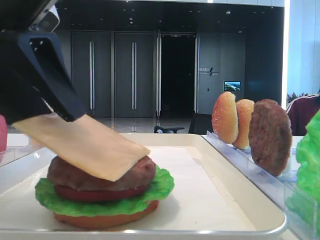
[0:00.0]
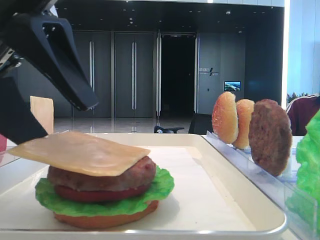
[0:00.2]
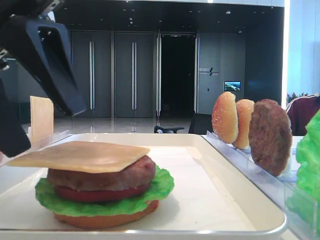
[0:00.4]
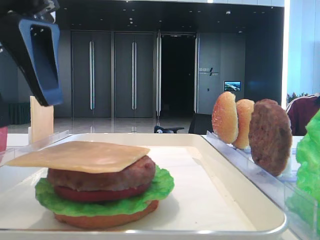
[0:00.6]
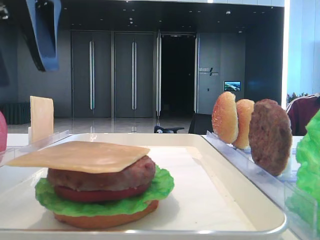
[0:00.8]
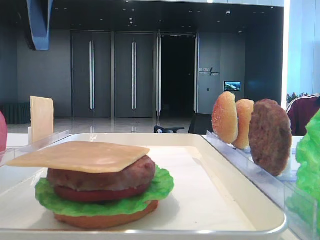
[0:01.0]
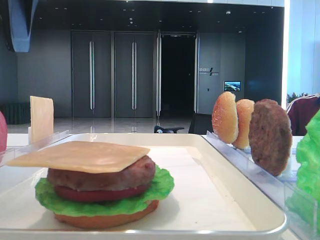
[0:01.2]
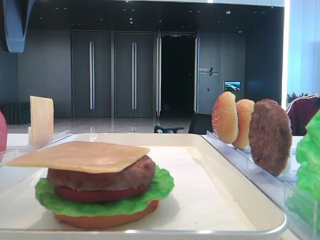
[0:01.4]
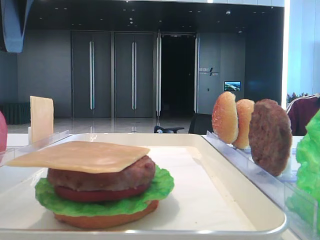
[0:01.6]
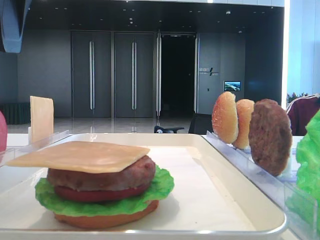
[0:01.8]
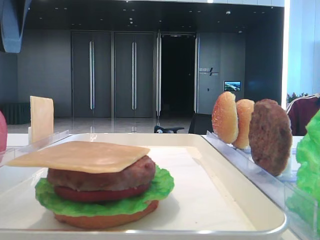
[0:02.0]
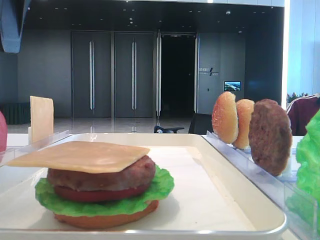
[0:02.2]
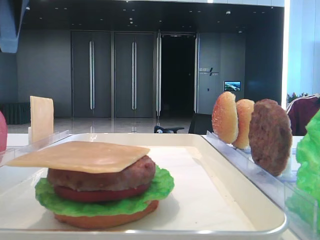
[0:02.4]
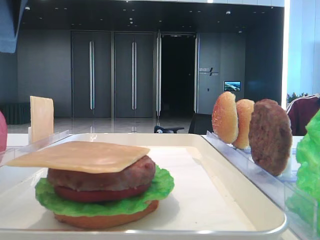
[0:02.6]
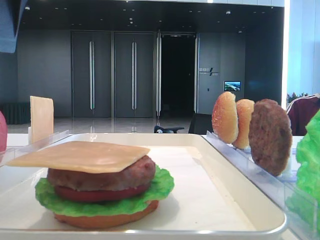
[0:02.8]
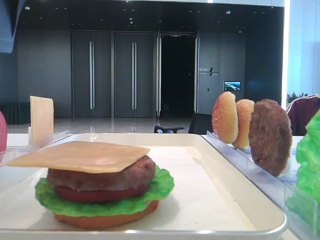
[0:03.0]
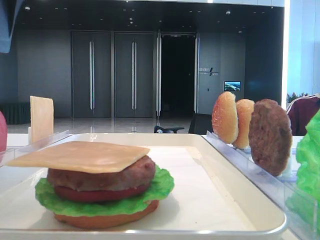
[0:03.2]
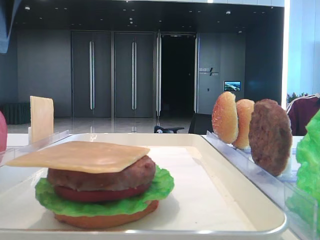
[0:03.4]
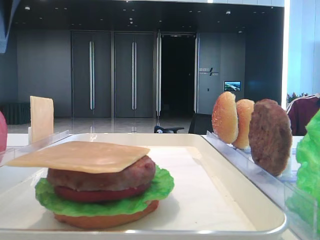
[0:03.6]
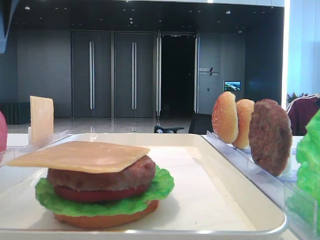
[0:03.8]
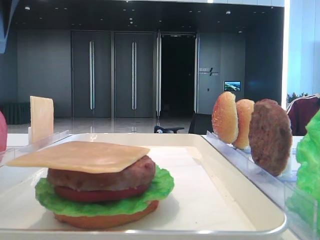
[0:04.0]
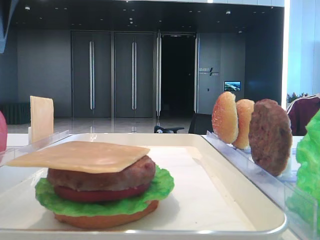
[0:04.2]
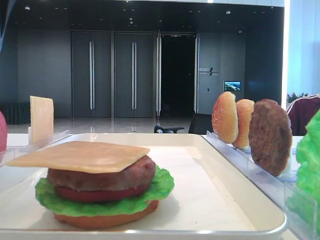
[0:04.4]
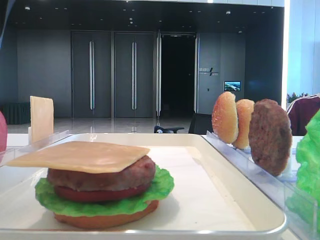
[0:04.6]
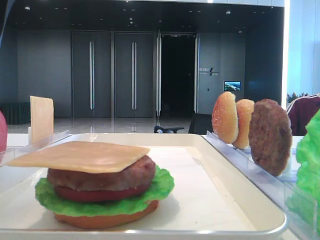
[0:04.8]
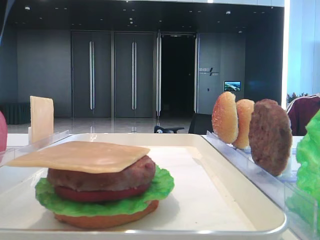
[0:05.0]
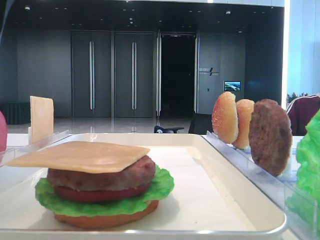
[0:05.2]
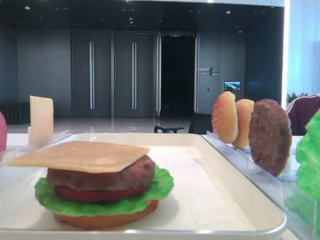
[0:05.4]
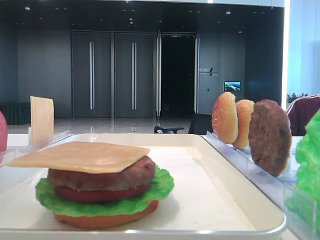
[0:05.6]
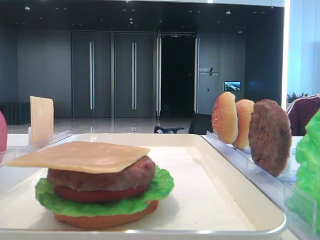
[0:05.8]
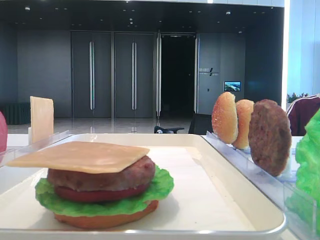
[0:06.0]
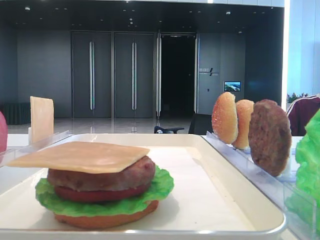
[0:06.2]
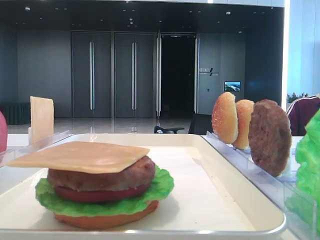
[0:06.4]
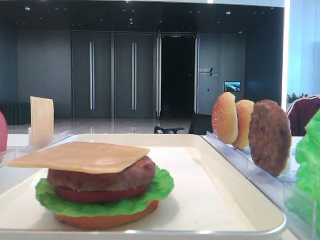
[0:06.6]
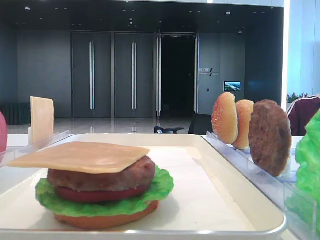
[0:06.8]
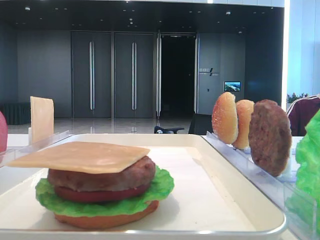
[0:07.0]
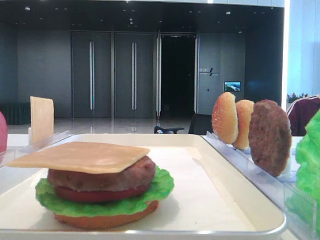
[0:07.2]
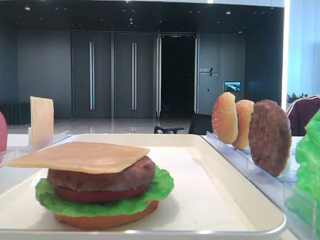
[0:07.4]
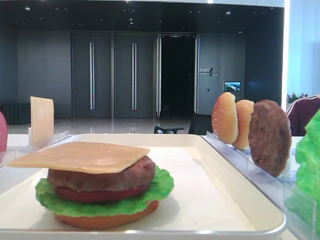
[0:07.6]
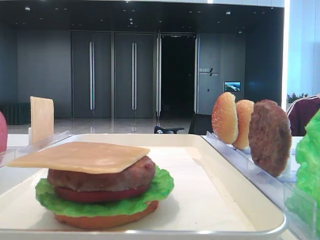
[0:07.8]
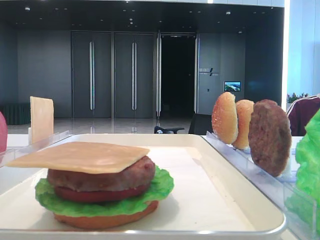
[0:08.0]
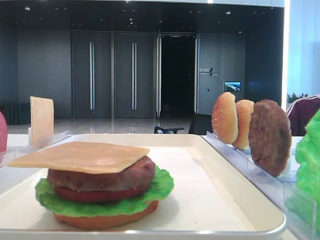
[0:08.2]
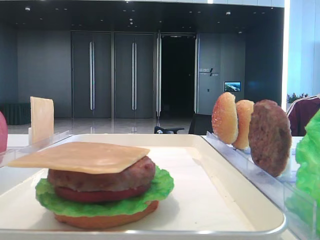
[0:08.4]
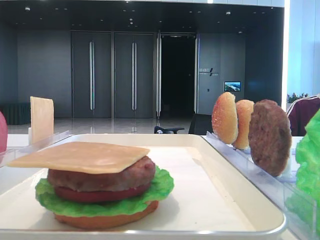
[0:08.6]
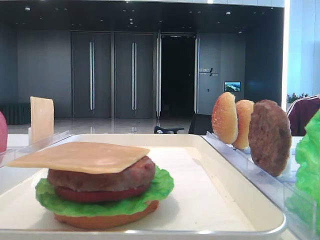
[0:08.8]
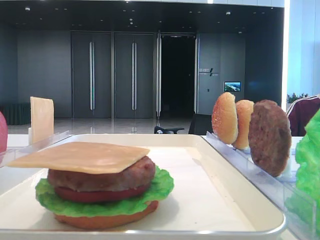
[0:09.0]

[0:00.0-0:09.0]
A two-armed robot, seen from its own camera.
0:00.0 to 0:01.6: The left gripper moves upward and forward, some 10 cm, and opens.
0:01.6 to 0:04.4: Neither gripper changes place.
0:04.4 to 0:06.0: The left gripper is displaced backward and to the left by some 15 cm.

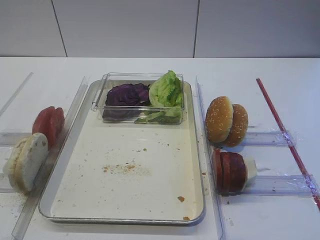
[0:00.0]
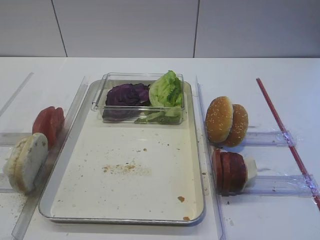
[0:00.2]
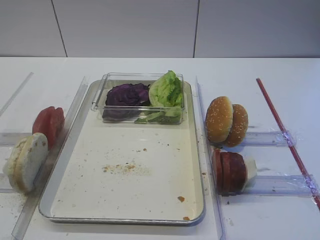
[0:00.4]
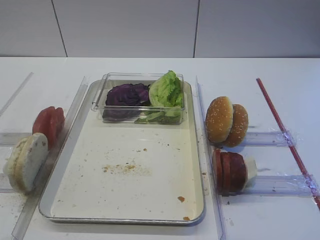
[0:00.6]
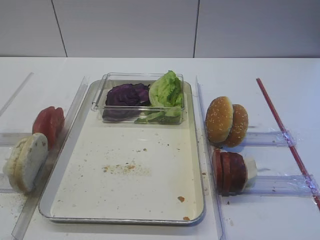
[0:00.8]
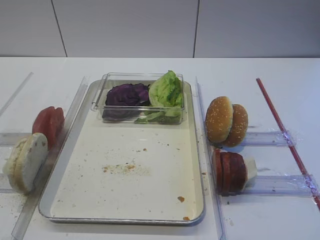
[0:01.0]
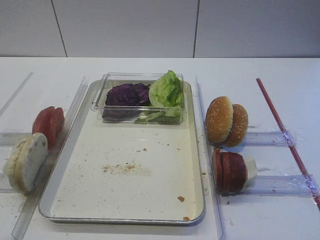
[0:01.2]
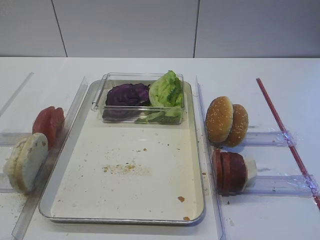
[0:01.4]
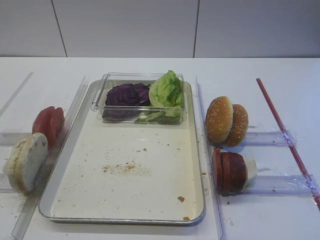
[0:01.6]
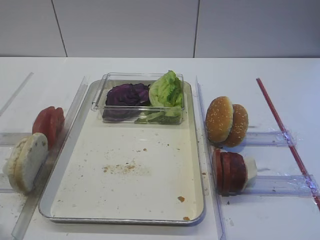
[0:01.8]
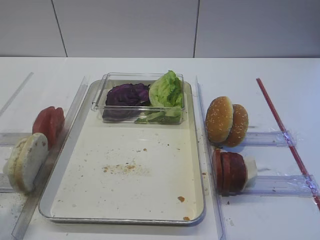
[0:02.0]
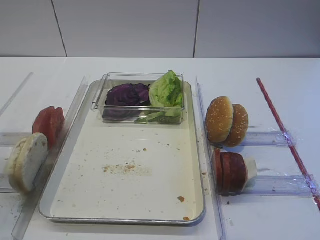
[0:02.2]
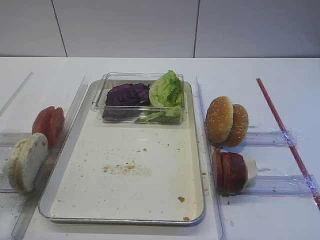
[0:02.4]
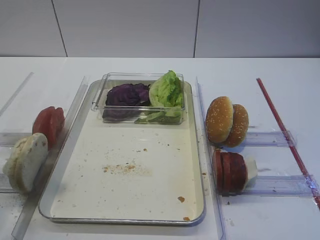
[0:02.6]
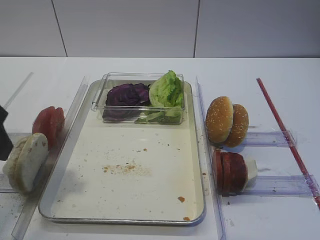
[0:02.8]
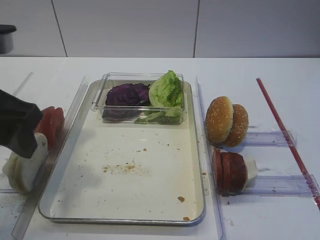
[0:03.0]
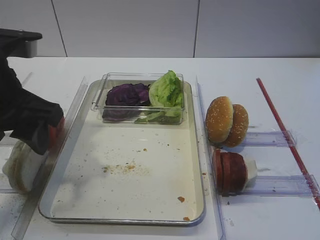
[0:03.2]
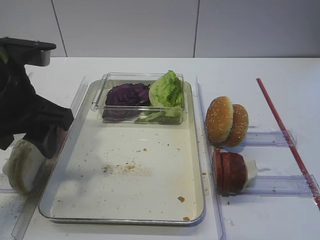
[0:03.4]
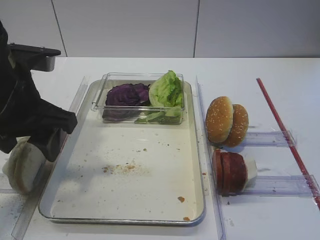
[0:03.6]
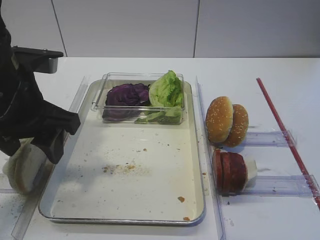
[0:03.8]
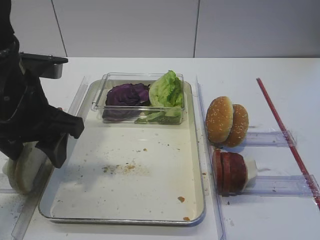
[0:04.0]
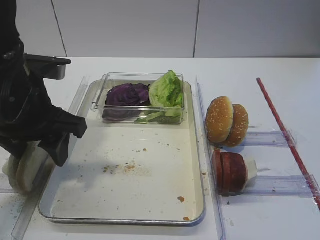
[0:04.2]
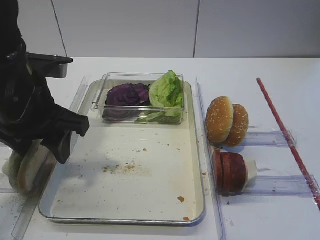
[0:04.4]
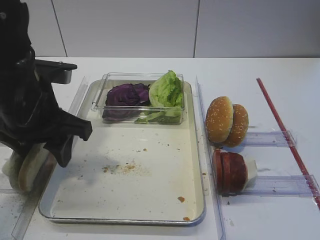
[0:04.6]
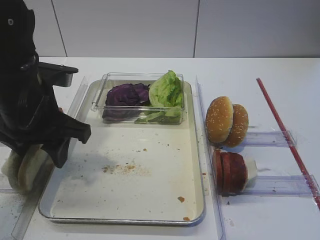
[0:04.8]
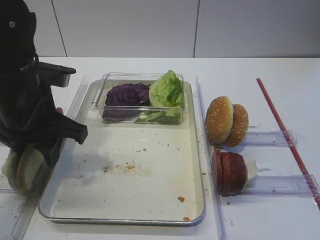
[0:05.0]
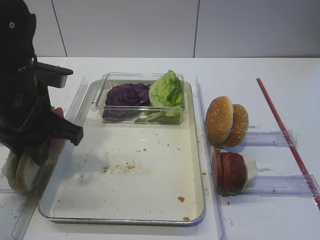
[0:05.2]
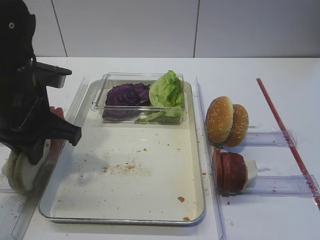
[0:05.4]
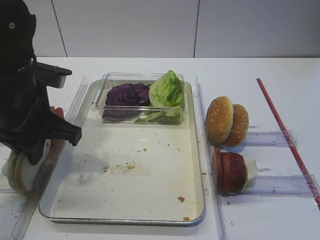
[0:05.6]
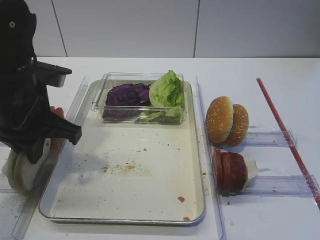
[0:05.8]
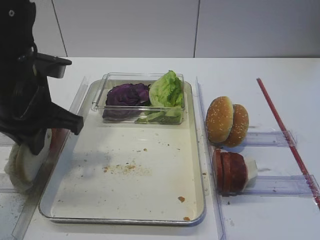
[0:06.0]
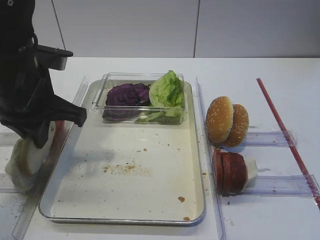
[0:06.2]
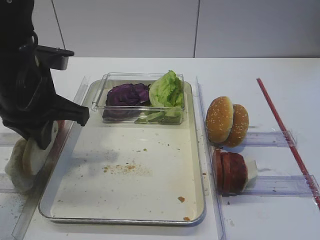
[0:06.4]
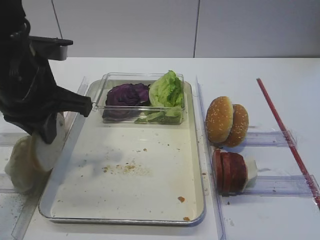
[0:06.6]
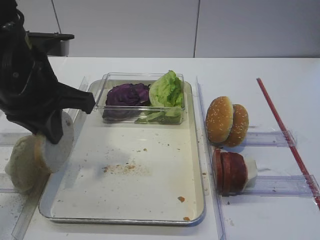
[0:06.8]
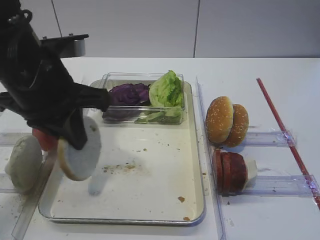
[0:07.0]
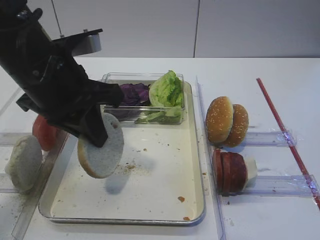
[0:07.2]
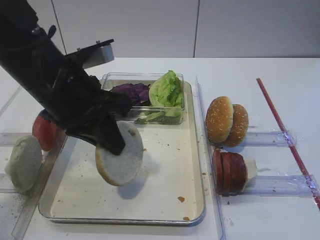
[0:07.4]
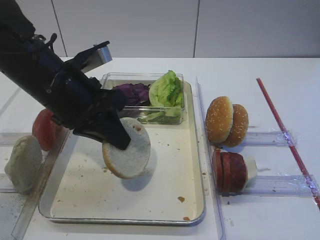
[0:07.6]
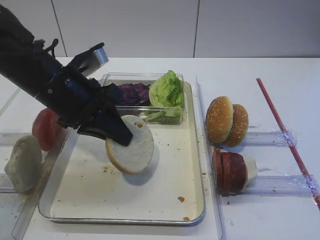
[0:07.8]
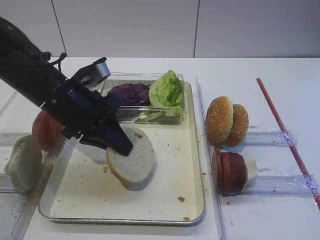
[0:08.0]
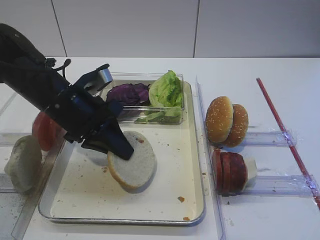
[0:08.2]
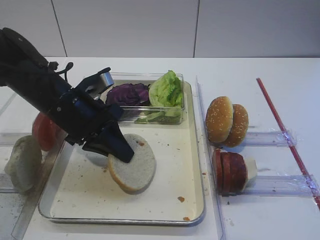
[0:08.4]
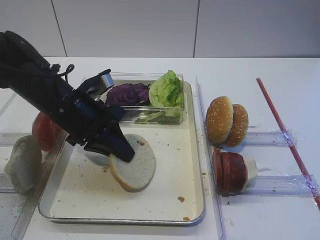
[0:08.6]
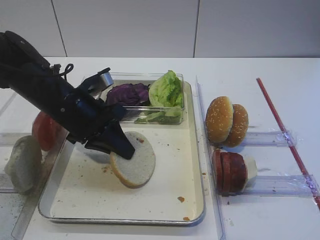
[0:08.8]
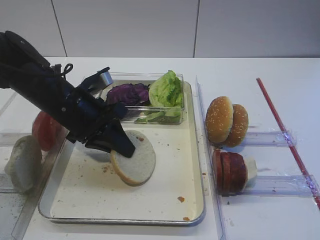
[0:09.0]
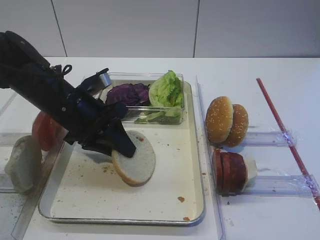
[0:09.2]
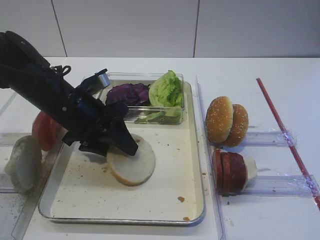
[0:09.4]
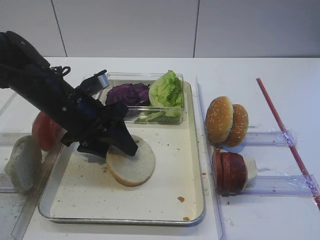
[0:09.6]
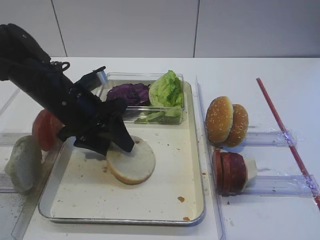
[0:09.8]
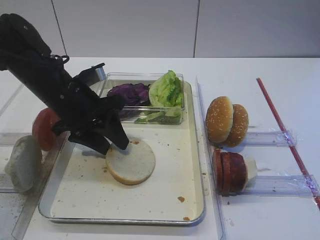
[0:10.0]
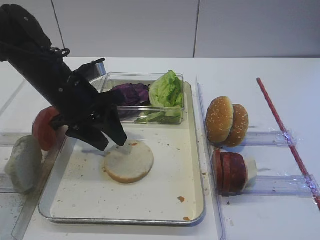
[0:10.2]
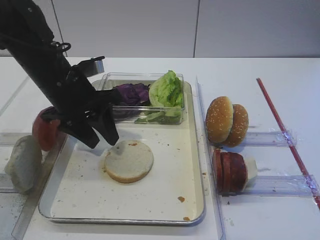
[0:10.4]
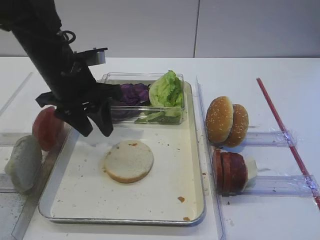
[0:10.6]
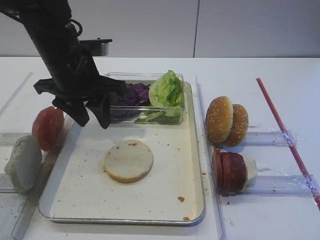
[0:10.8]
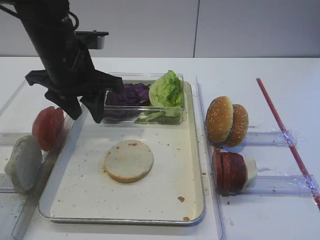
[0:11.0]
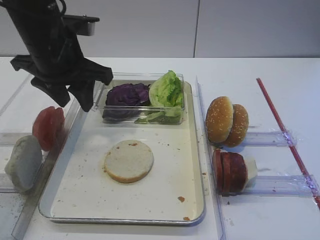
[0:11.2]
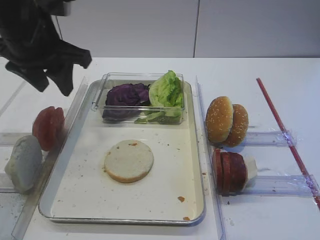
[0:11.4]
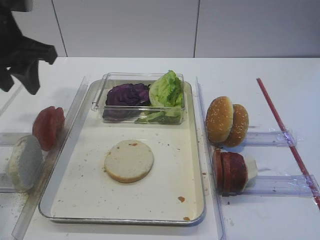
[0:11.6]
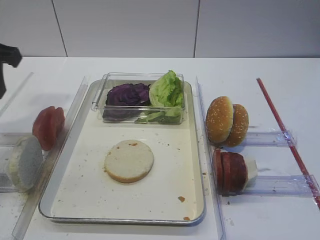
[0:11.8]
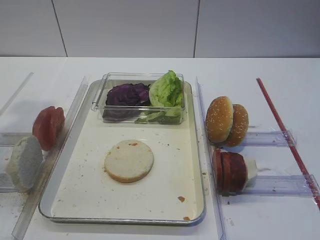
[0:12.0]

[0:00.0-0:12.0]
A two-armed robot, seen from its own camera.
Step, 0:00.0 to 0:06.4: Pick up the bread slice with the left gripper.
Step, 0:06.6 to 0:10.4: Place the bread slice on the tray with the left gripper.
0:01.6 to 0:03.0: The left gripper is displaced forward and to the right by roughly 20 cm.
0:03.0 to 0:04.4: The left gripper travels forward and downward by approximately 10 cm.
0:04.4 to 0:06.0: The left gripper closes up.
0:07.6 to 0:09.0: The left gripper goes approximately 5 cm downward.
0:09.0 to 0:10.4: The left gripper opens up.
0:10.4 to 0:12.0: The left gripper goes some 20 cm to the left, upward and backward.

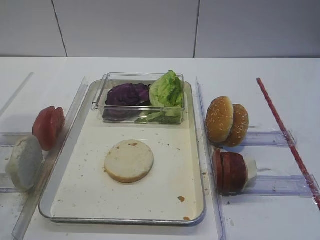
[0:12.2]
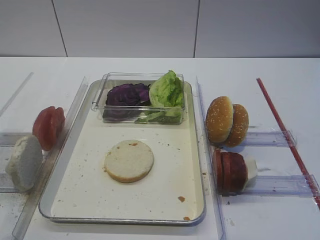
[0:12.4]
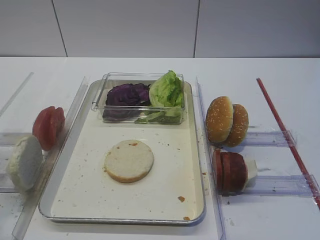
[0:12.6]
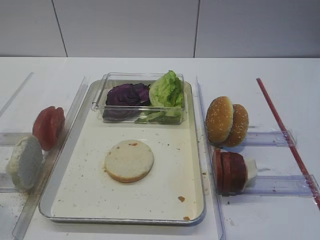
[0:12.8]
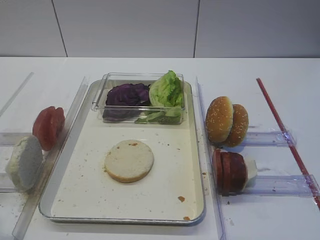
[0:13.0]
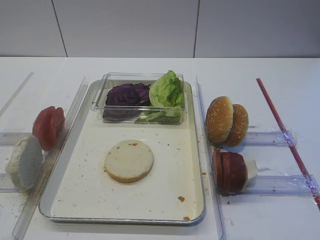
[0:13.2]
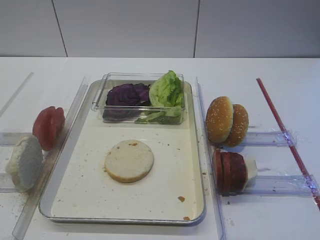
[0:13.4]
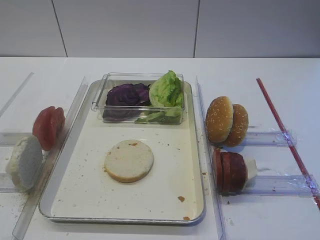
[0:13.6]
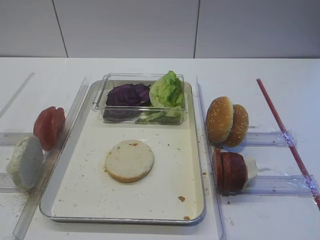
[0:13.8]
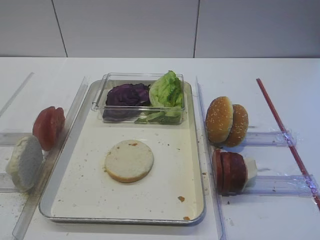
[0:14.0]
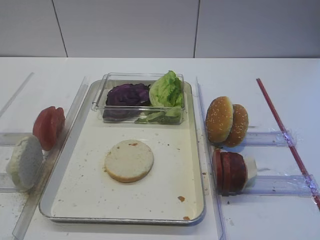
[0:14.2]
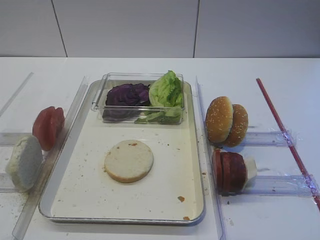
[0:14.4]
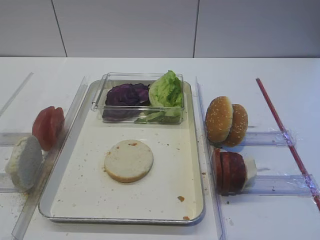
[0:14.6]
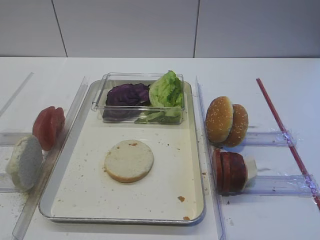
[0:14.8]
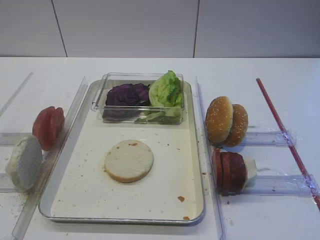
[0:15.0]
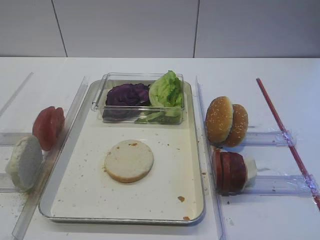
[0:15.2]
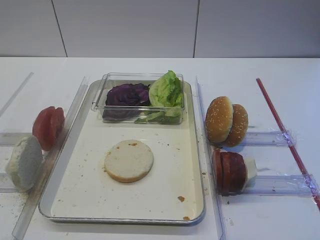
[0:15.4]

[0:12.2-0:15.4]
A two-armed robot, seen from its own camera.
0:12.2 to 0:13.8: The left gripper goes about 25 cm backward.
